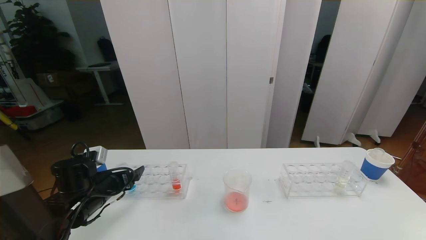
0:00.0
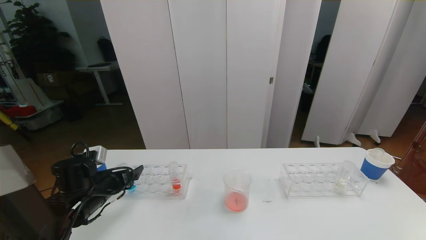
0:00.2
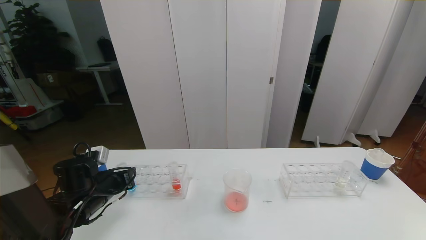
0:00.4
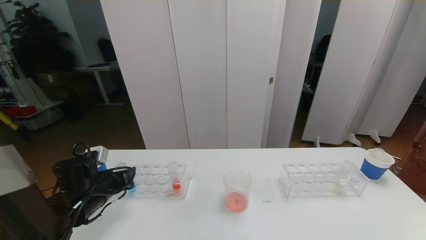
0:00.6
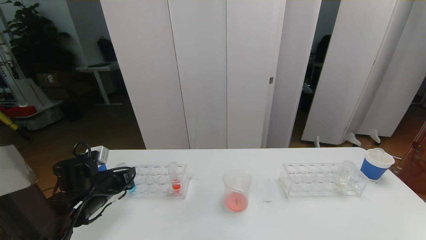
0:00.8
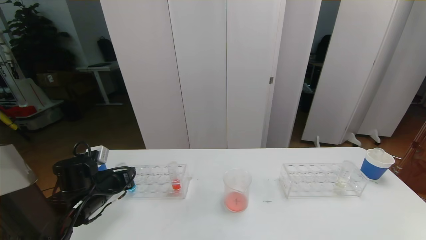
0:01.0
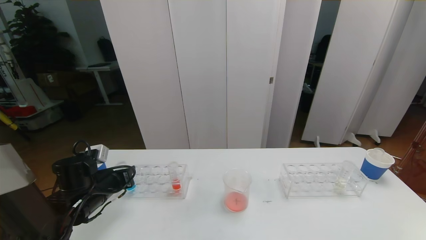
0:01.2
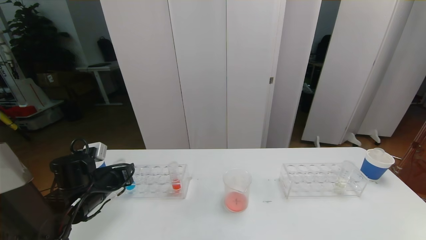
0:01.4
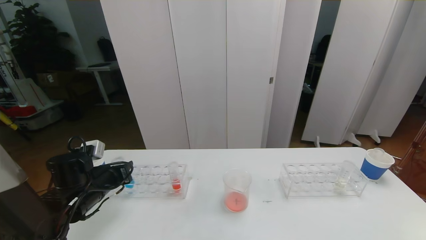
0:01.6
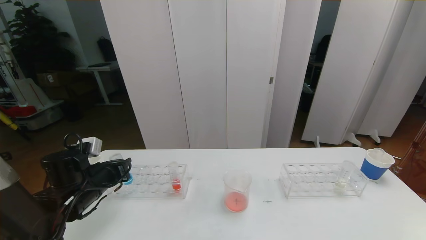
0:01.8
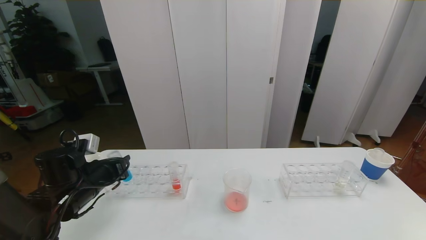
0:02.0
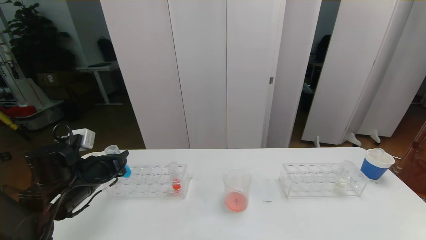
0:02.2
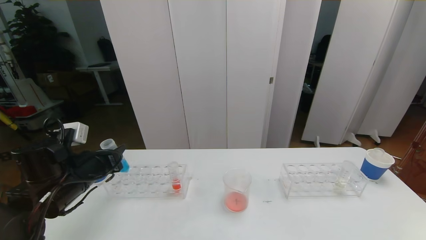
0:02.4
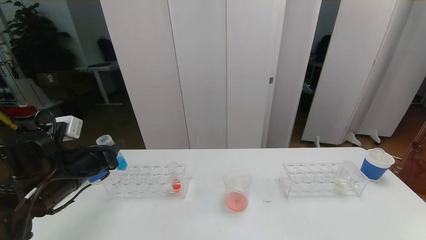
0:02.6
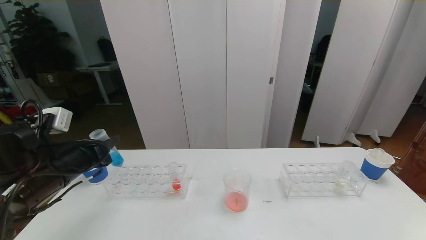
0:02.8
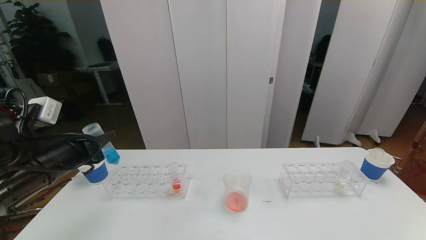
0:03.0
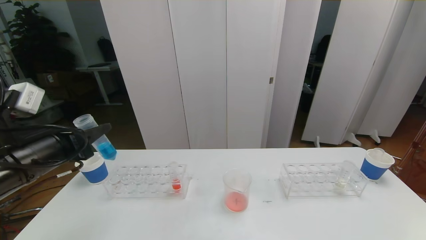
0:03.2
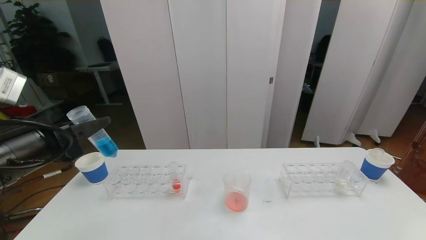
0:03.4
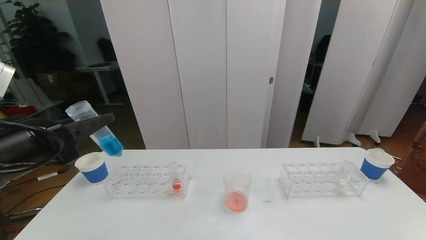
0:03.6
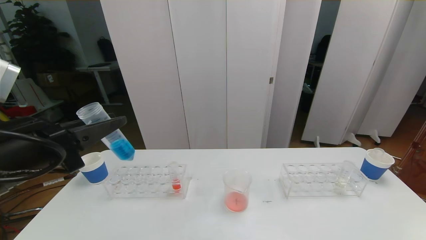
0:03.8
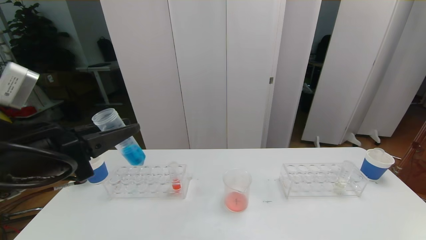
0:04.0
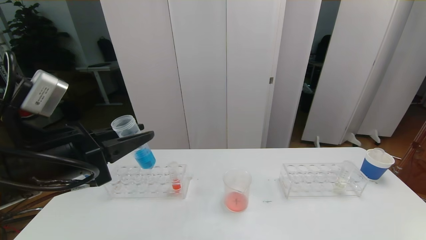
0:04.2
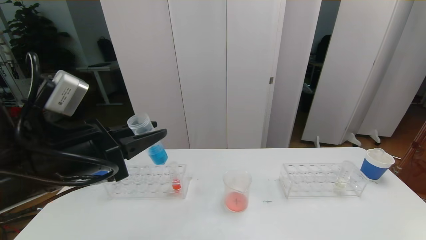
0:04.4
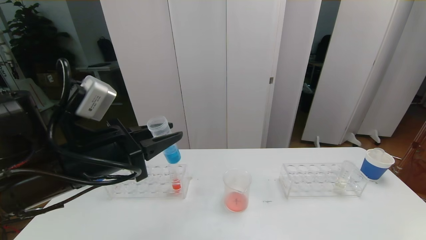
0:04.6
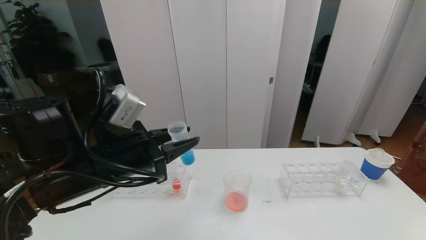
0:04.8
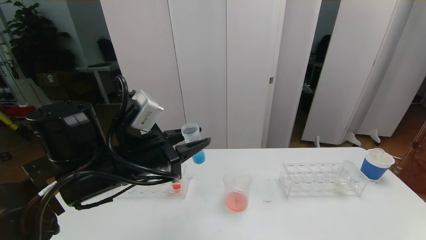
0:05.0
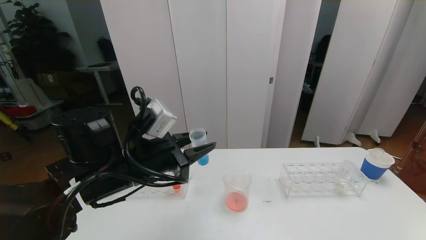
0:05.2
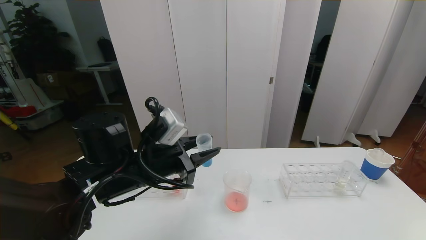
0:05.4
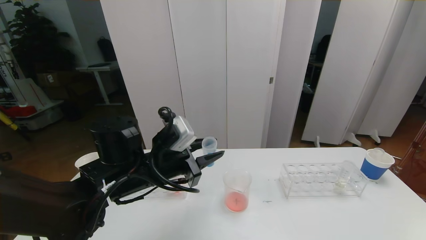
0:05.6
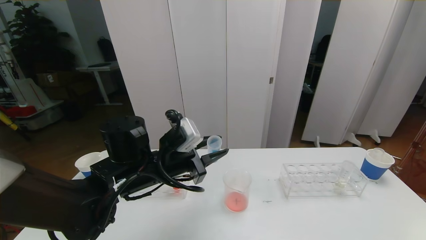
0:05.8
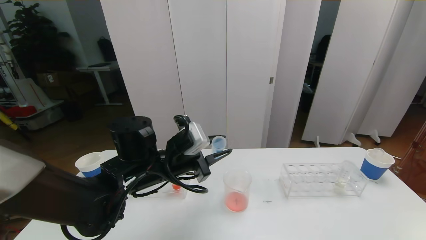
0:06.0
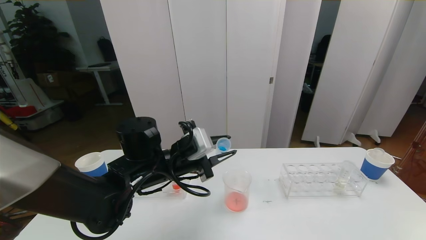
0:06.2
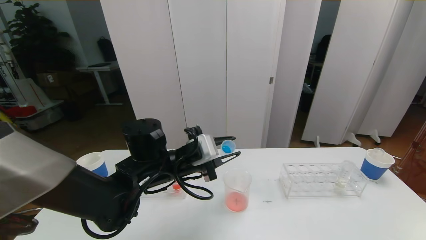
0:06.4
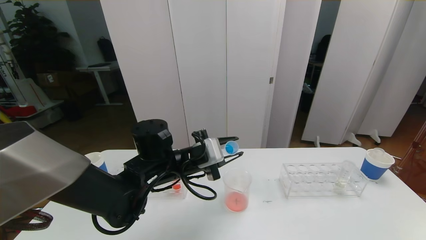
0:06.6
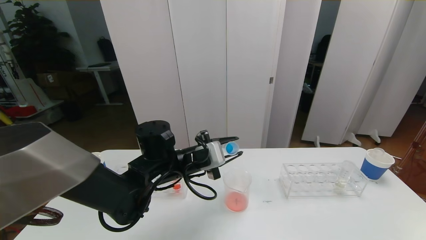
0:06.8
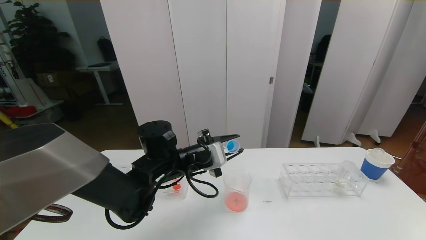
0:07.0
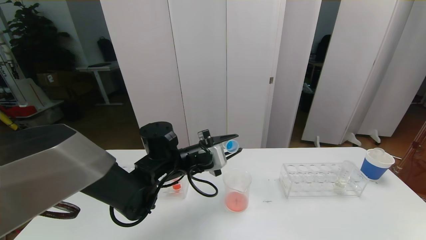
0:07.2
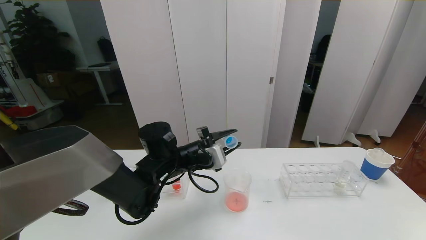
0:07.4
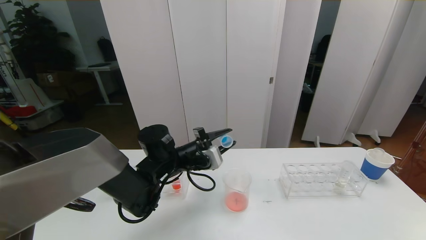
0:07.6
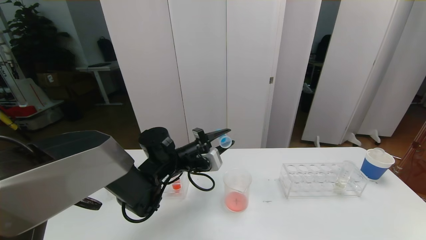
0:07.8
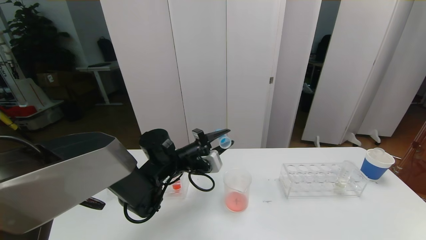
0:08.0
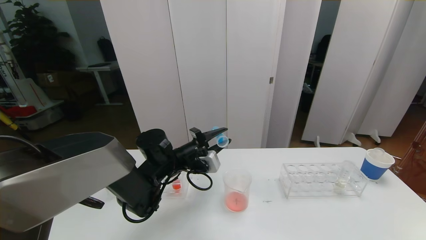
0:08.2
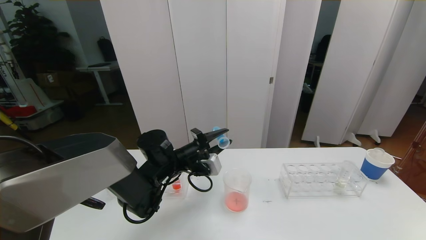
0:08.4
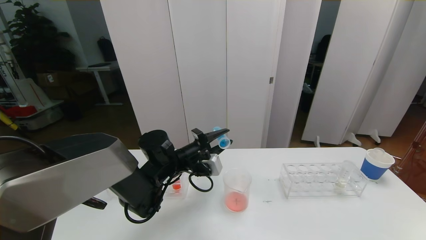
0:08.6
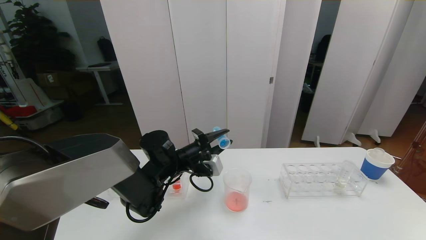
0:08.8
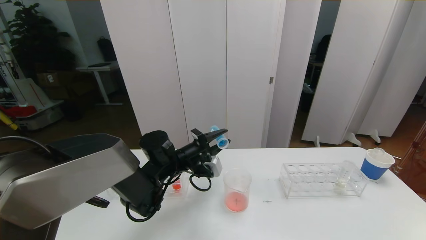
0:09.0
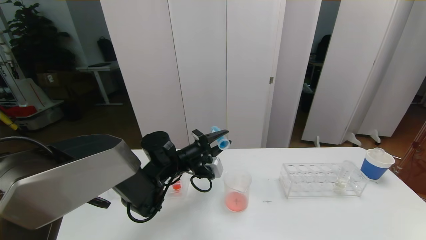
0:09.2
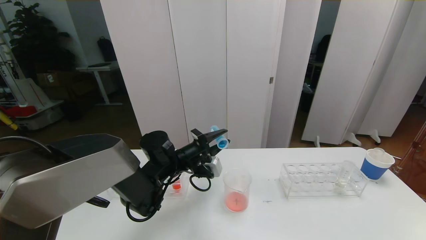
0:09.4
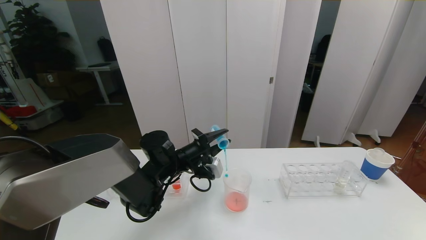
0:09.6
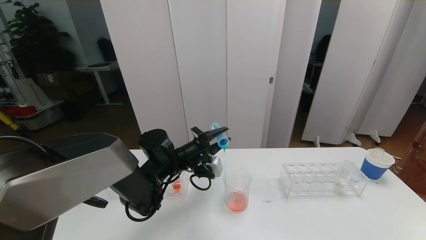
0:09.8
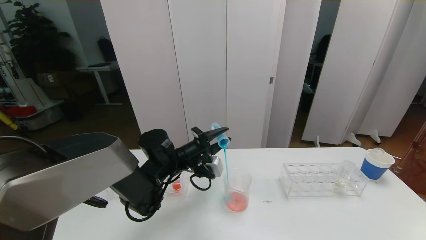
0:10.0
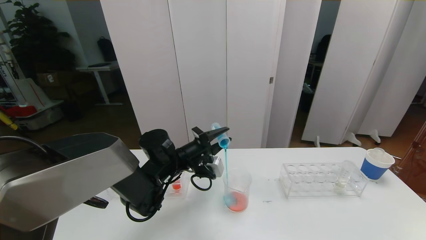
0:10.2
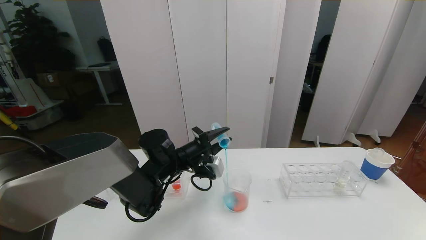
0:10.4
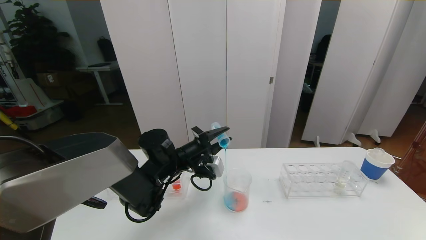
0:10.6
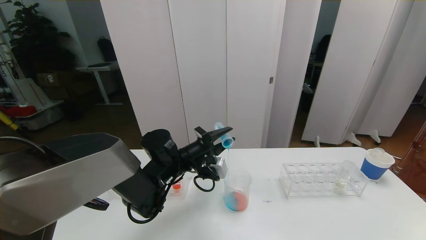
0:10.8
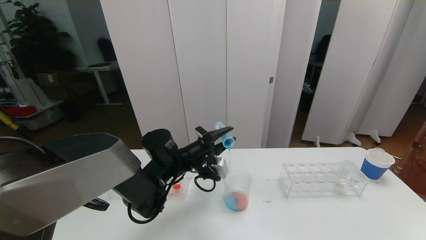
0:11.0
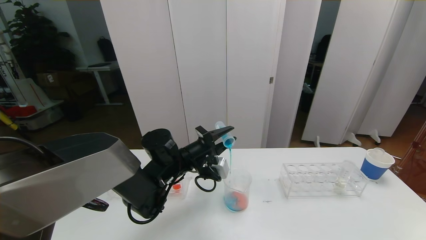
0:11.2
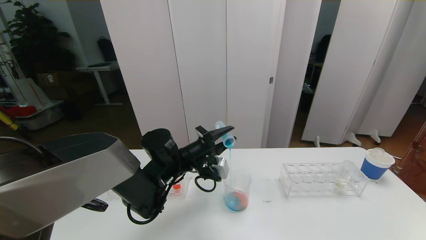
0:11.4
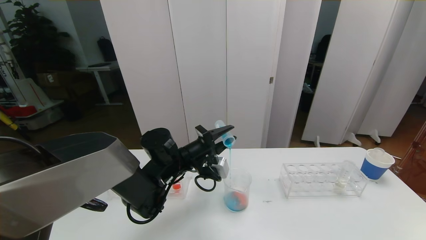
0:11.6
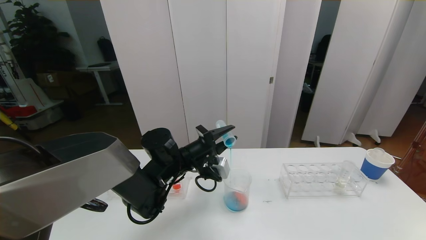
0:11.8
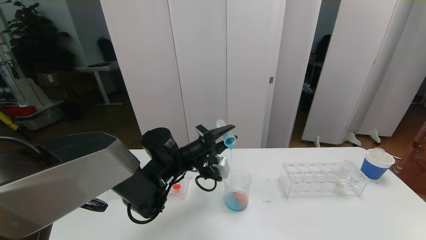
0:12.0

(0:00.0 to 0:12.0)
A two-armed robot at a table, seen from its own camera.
Task of the whole recording: pick up the test tube with red pigment the test tube with blue pigment and the test tube with white pigment by grippers and pour them into the beaker.
0:00.0 - 0:01.6: The left gripper closes.
0:01.6 - 0:03.0: The left gripper goes approximately 15 cm upward and backward.
0:03.0 - 0:04.4: The left gripper moves to the right, roughly 5 cm.
0:04.4 - 0:06.0: The left gripper moves to the right, forward and downward, some 15 cm.
0:06.0 - 0:07.6: The left gripper goes about 5 cm forward.
0:07.6 - 0:09.0: The grippers stay close to where they were, moving slightly.
0:09.0 - 0:10.4: Neither gripper changes place.
0:10.4 - 0:12.0: There are only small adjustments of the grippers.

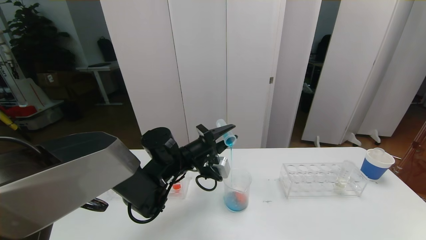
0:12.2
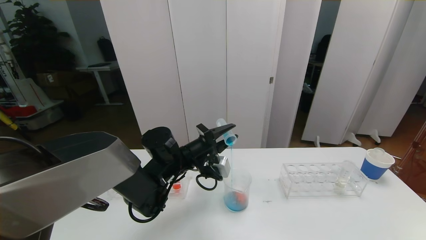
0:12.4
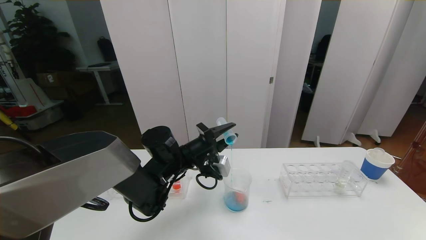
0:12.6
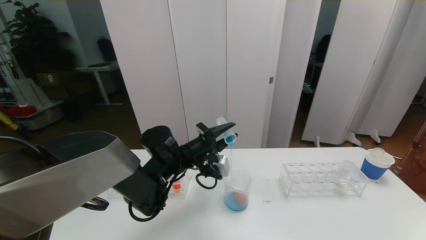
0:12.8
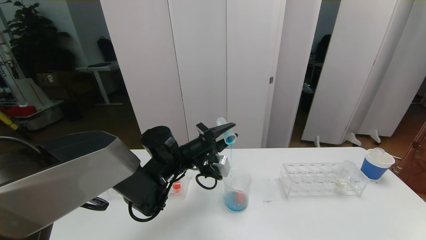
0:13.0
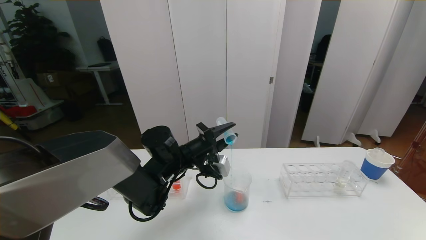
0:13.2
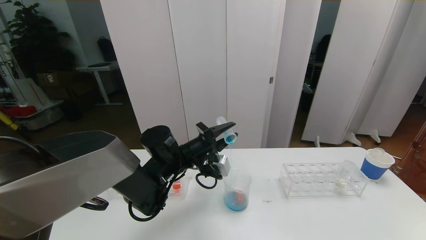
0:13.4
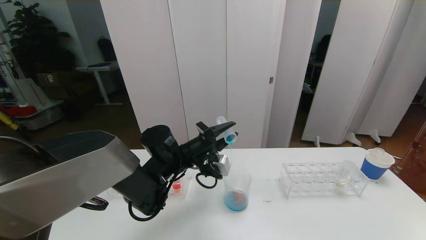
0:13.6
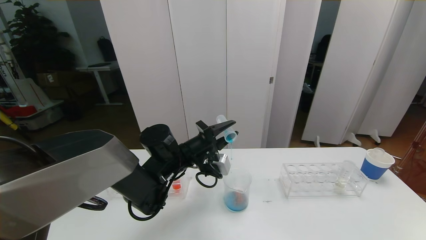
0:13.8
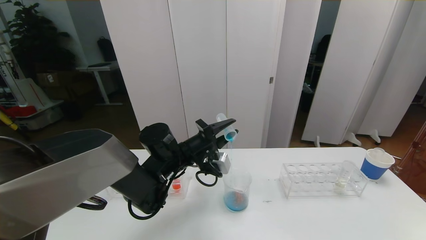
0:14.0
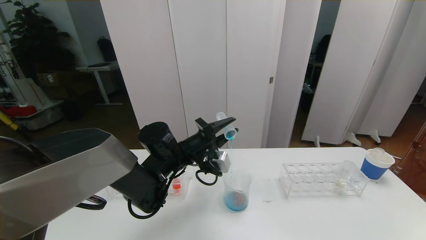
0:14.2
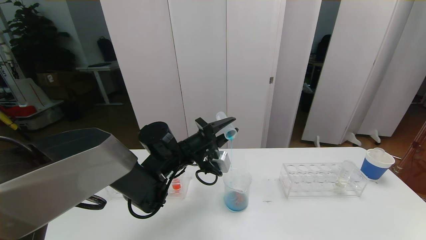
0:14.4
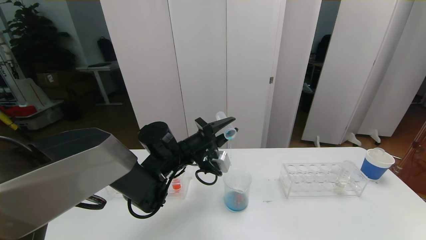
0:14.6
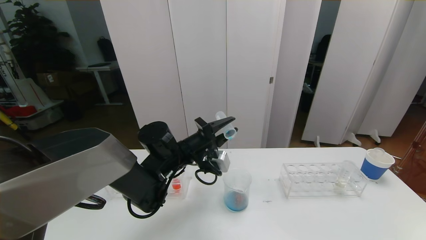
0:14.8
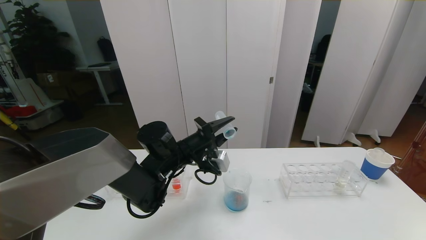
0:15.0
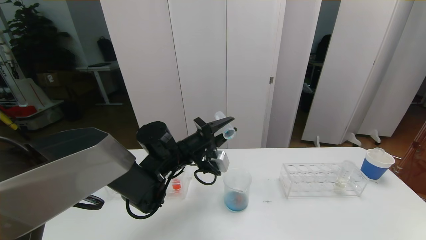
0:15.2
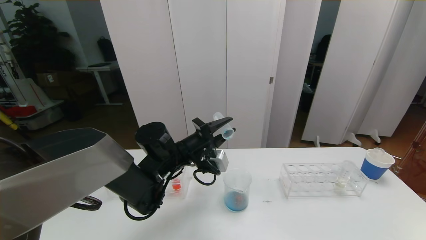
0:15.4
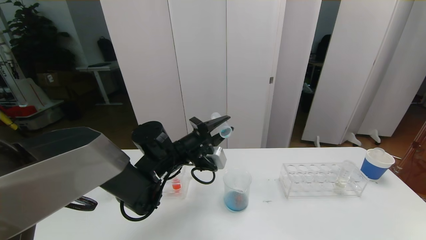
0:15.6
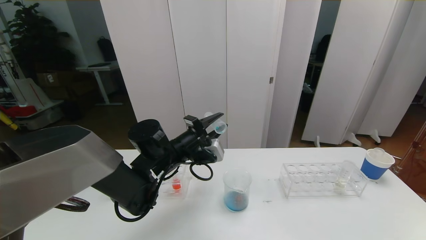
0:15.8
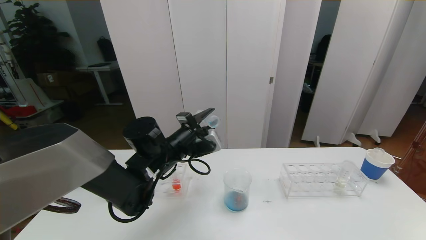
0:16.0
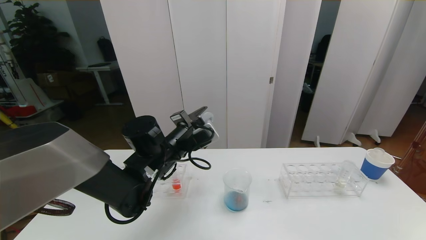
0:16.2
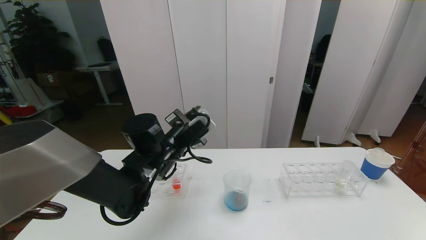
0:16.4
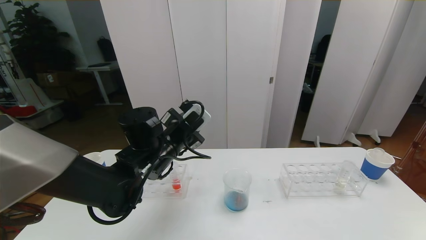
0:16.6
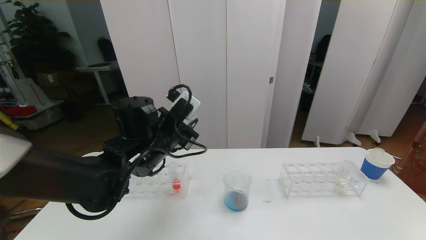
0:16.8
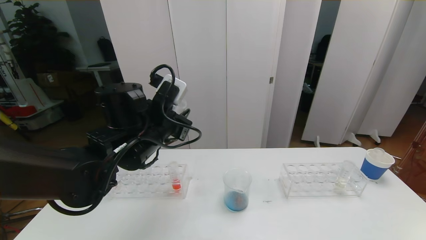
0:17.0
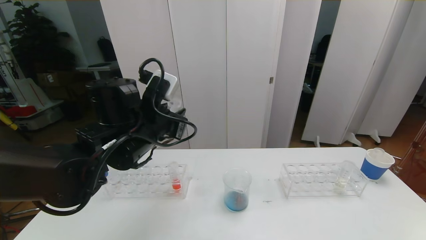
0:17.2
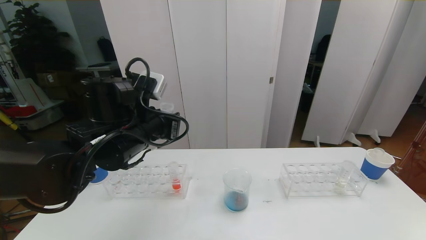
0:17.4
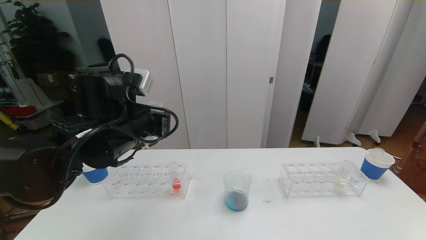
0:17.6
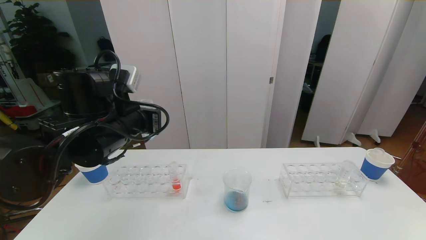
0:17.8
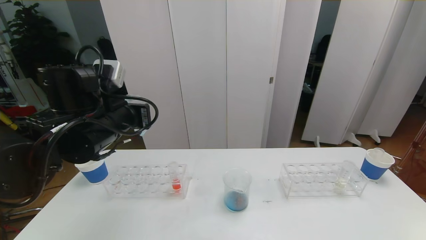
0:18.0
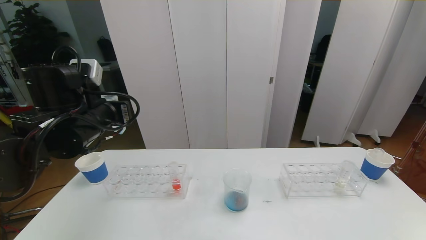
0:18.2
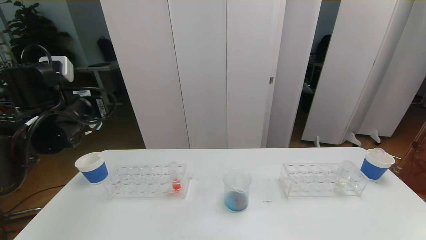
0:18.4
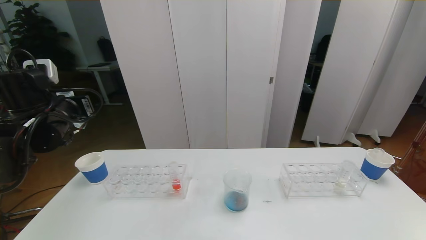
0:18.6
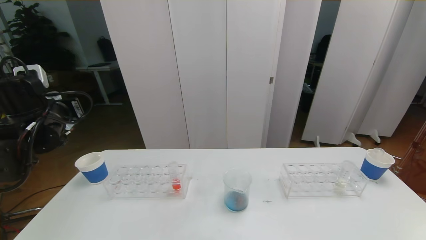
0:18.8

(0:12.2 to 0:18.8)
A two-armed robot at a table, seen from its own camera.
Task of the whole recording: pick up the test tube with red pigment the test tube with blue pigment and the test tube with white pigment by grippers and pour them into the beaker.
0:12.2 - 0:13.8: Both grippers stay about where they are.
0:13.8 - 0:15.4: The two grippers keep their place.
0:15.4 - 0:17.2: The left gripper is displaced upward and backward by roughly 10 cm.
0:17.2 - 0:18.8: The left gripper shifts about 20 cm to the left.
